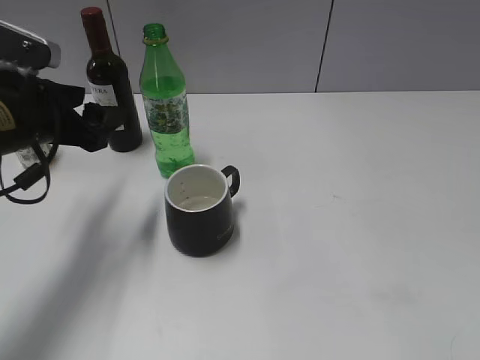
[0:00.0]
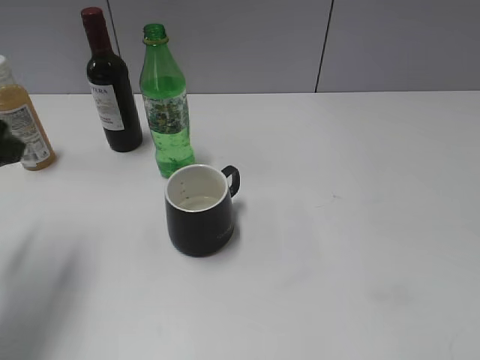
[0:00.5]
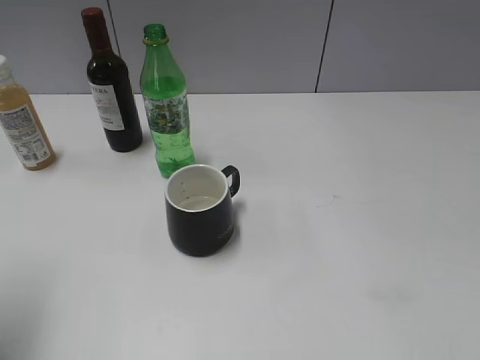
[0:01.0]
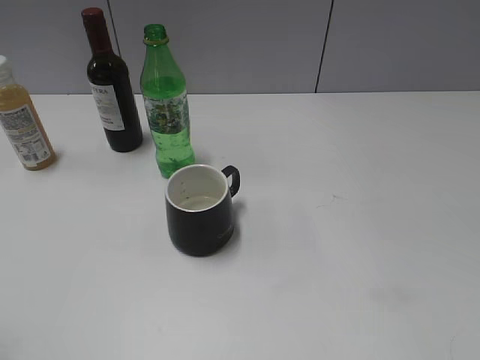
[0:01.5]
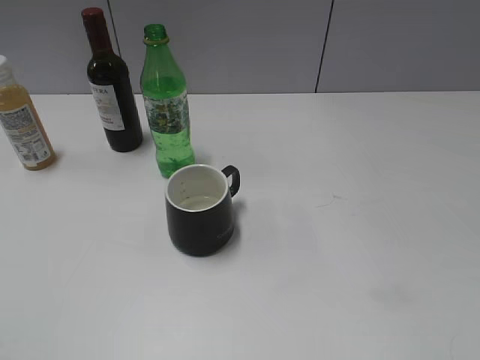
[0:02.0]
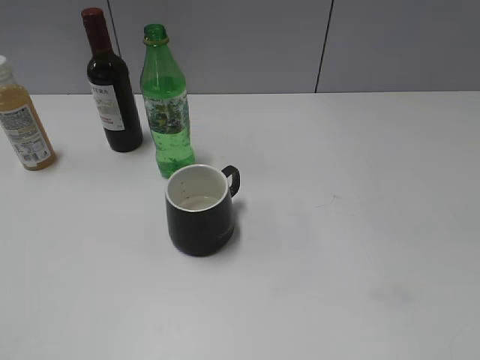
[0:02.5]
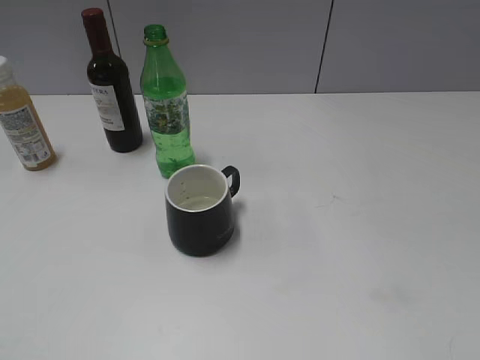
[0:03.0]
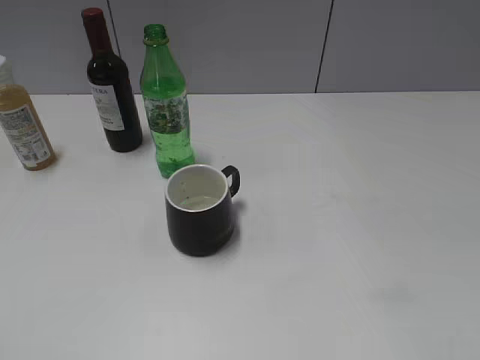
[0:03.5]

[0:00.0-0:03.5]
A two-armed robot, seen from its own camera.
0:00.0 to 0:02.0: The left gripper heads backward, covering some 25 cm.

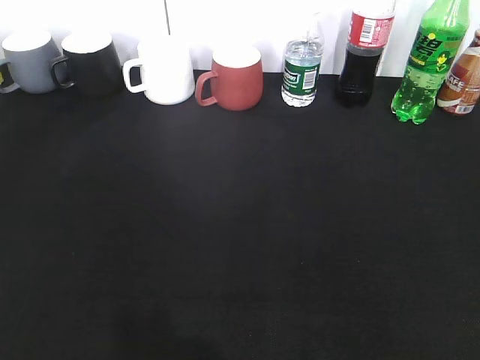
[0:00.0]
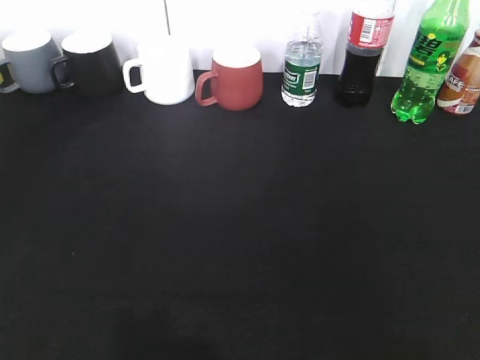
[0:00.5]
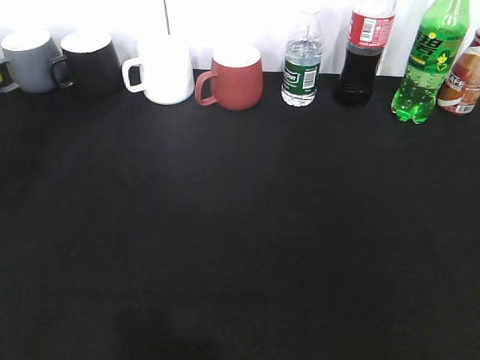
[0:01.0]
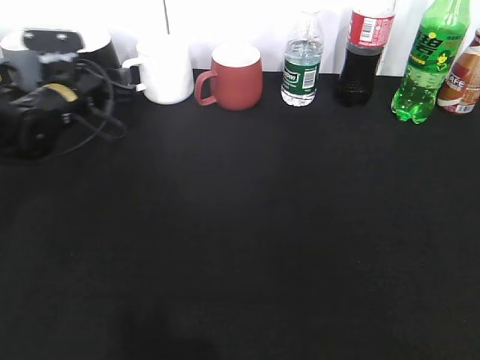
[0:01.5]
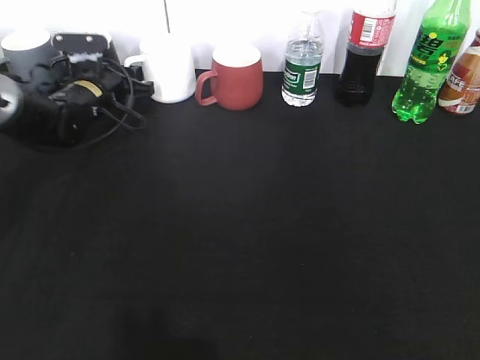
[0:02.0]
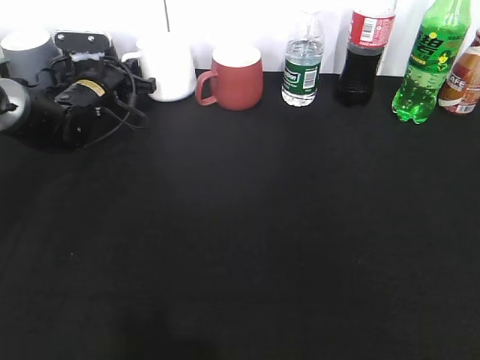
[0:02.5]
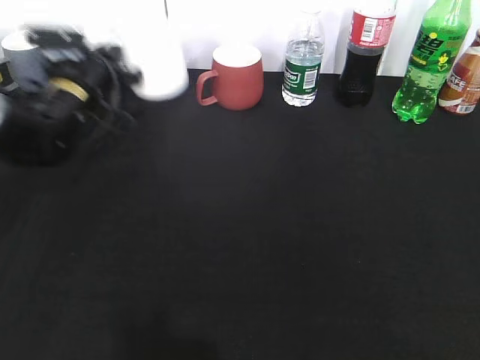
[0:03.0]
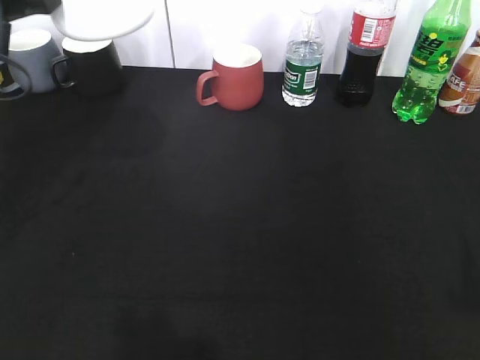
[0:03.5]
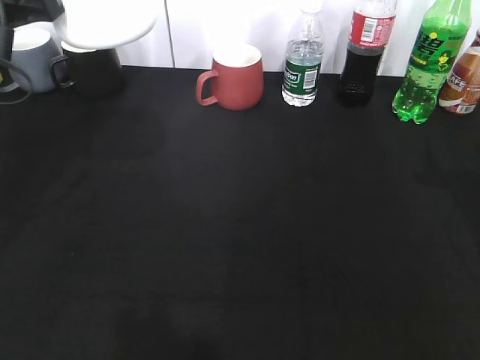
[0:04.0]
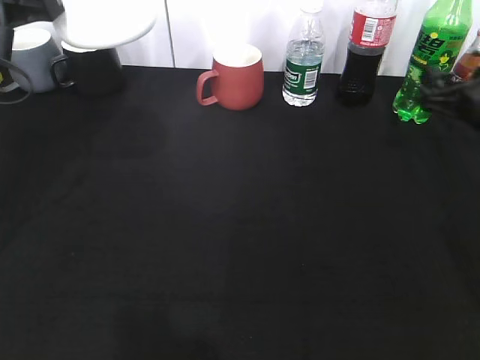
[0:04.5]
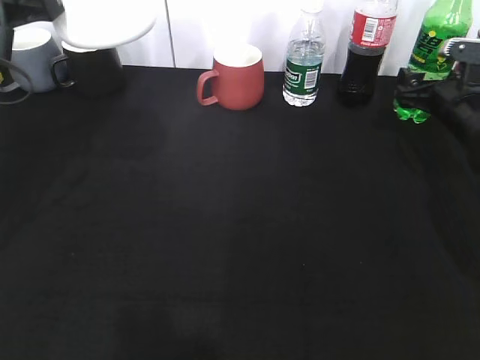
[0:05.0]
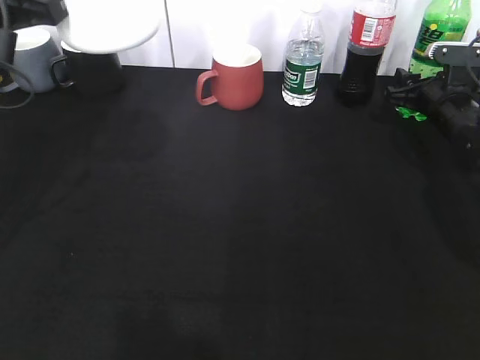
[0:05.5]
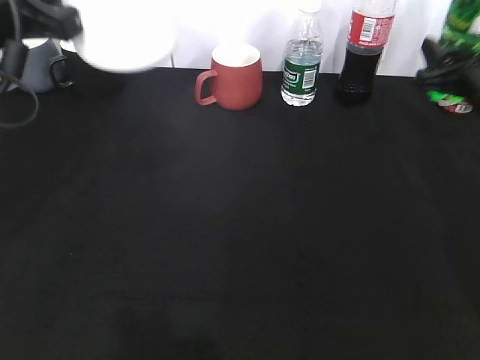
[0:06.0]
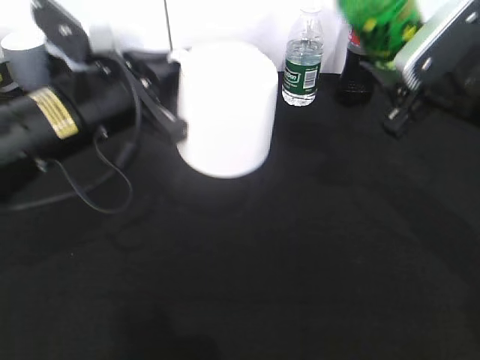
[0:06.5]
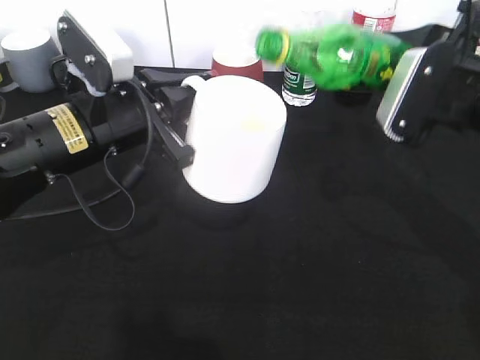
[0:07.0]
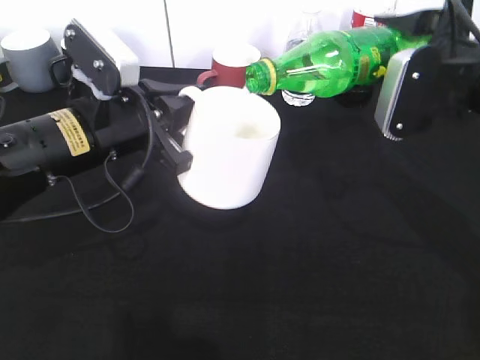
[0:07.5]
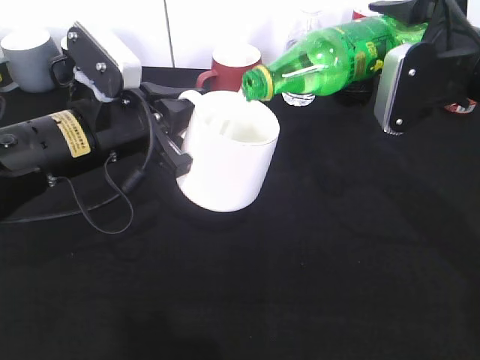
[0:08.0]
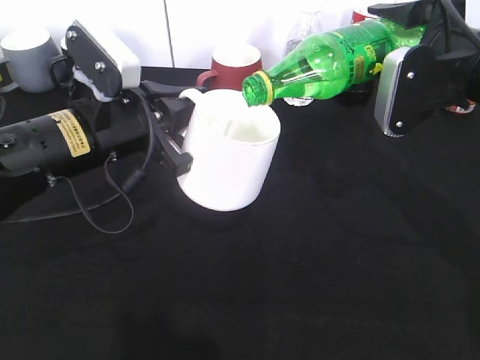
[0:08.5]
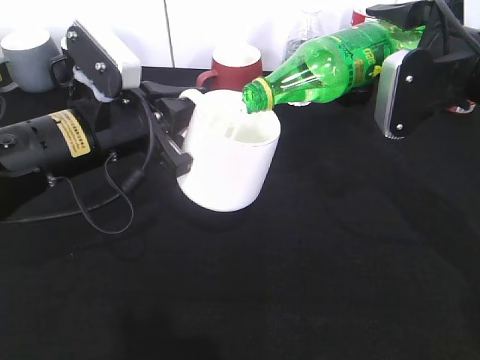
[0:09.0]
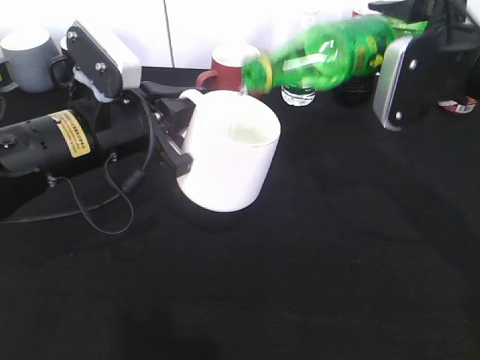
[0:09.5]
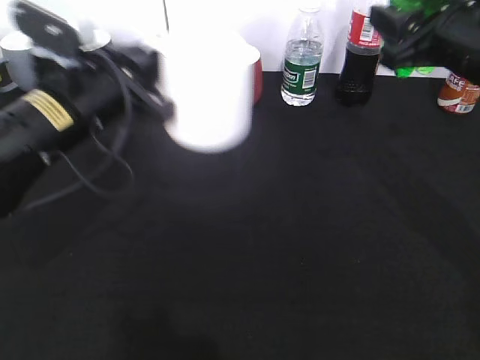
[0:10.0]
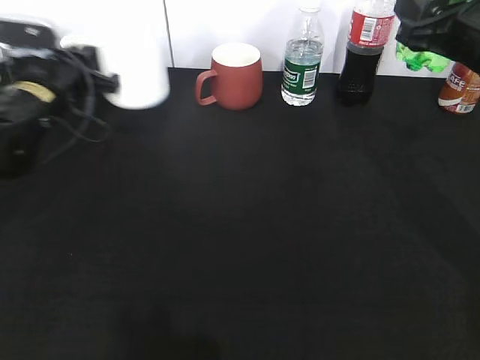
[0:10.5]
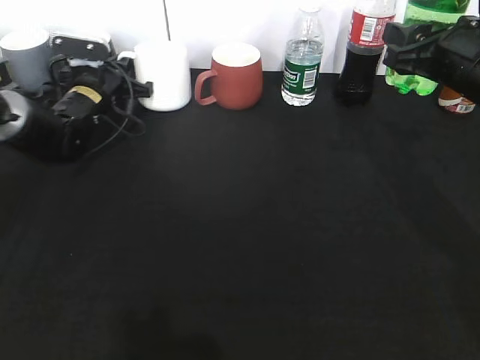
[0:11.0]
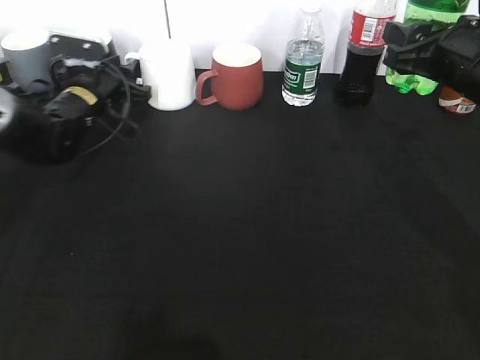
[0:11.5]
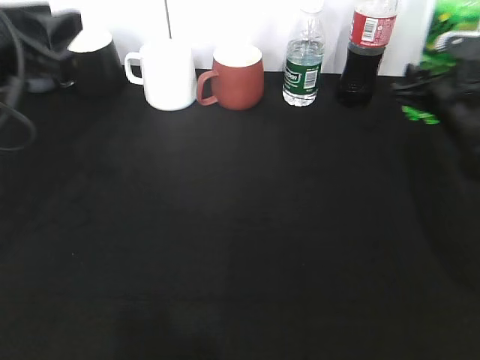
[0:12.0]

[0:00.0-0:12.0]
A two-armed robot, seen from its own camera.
Step, 0:00.0 to 0:02.5: Grasp the white cup with left gripper.
Step, 0:03.0 to 0:04.0: Lift the white cup with left gripper.
Step, 0:04.5 to 0:05.5: Grasp the bottle with sprite with right gripper.
Step, 0:06.0 to 0:09.5: Pour the sprite from bottle to cup with right gripper.
0:00.0 to 0:02.0: The left gripper shifts roughly 50 cm forward, and closes.
0:02.0 to 0:04.0: The left gripper travels backward and upward by about 25 cm, and closes its fingers; the right gripper moves forward, approximately 25 cm.
0:04.0 to 0:06.0: The right gripper moves forward, roughly 10 cm, and closes up.
0:06.0 to 0:08.0: The left gripper moves downward and to the right, about 10 cm. The right gripper travels to the left and upward by some 10 cm.
0:10.0 to 0:12.0: The right gripper shifts about 15 cm downward, forward and to the right. Meanwhile the left gripper is displaced to the left and upward by some 10 cm, goes forward and returns, roughly 20 cm each way, and opens its fingers.

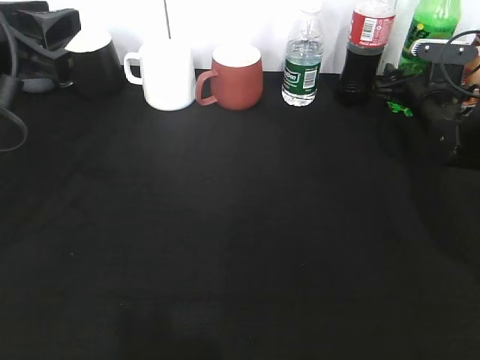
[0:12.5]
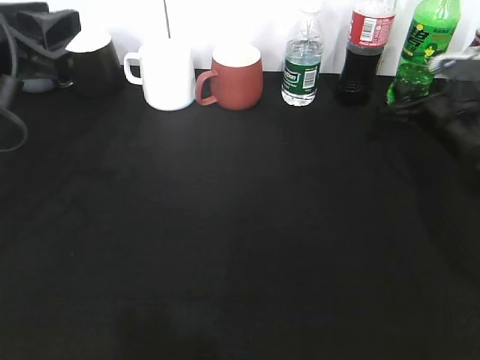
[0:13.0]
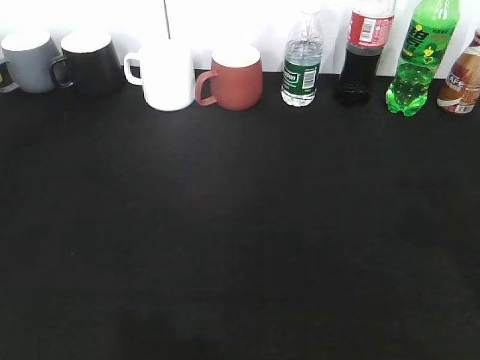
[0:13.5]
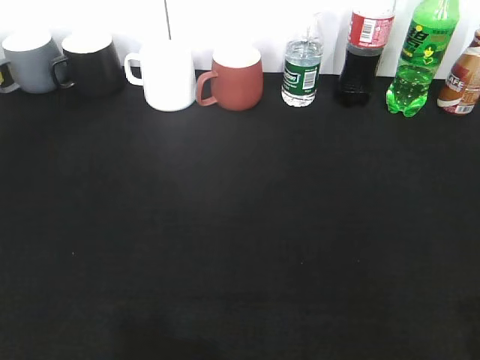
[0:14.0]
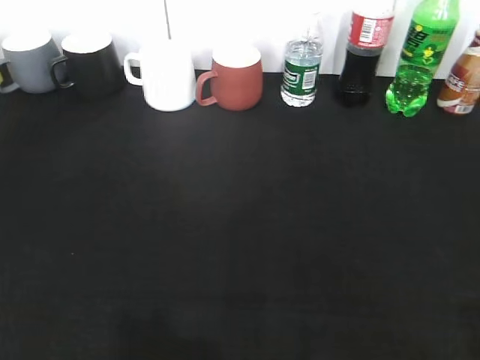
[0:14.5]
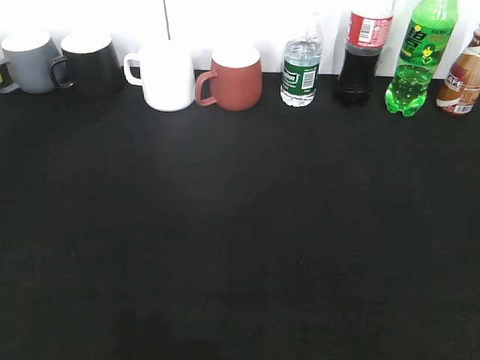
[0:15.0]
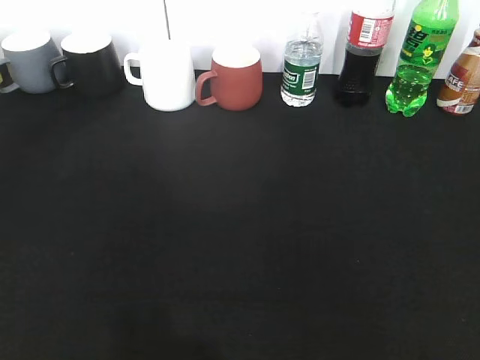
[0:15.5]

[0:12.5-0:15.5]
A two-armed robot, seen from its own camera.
0:12.5 to 0:14.0: The left gripper travels backward and to the left by approximately 25 cm, and opens up. Meanwhile the right gripper heads backward and upward, covering some 50 cm.

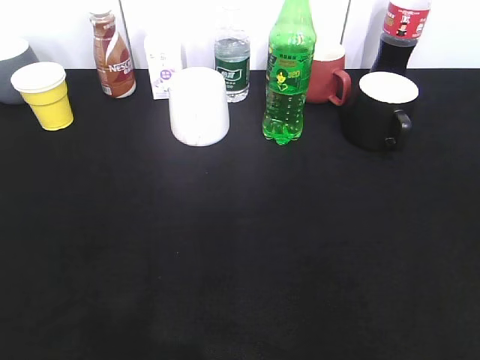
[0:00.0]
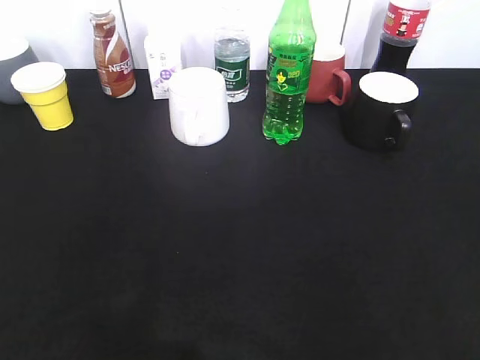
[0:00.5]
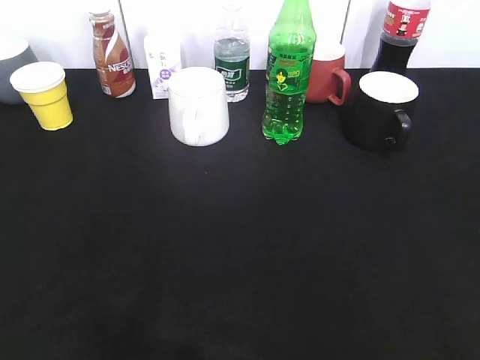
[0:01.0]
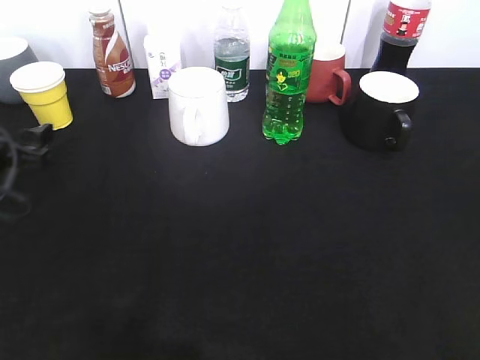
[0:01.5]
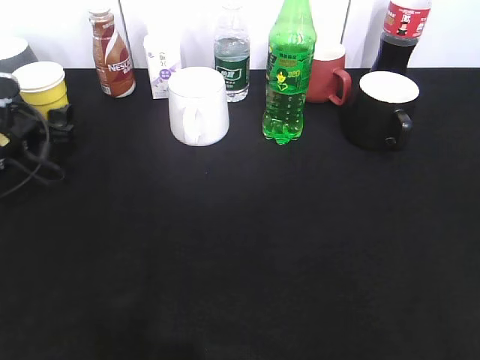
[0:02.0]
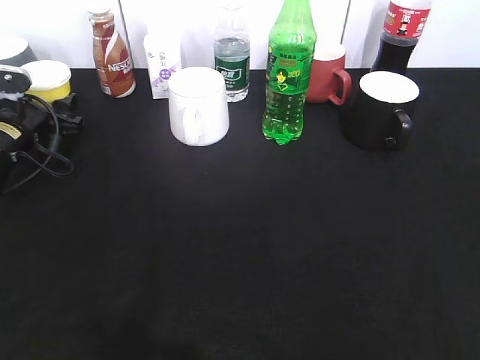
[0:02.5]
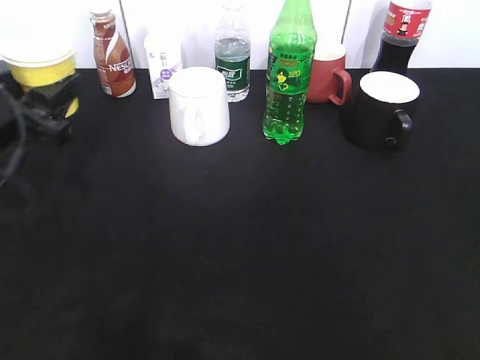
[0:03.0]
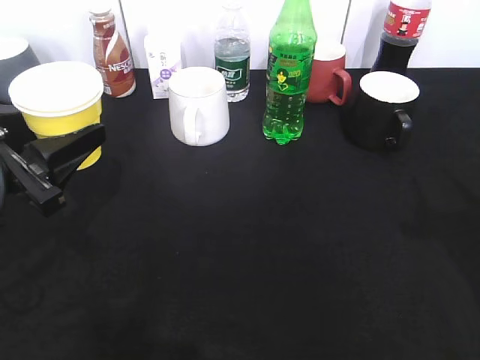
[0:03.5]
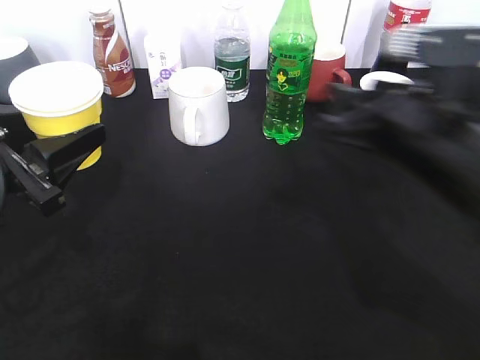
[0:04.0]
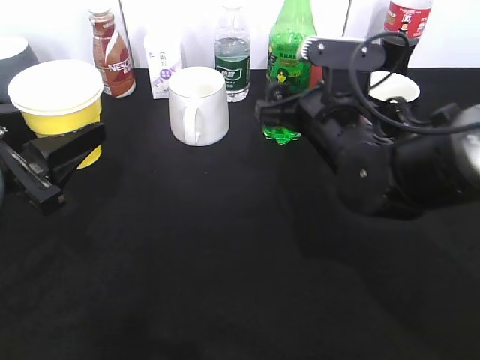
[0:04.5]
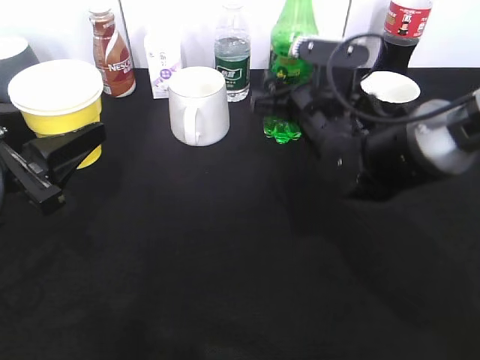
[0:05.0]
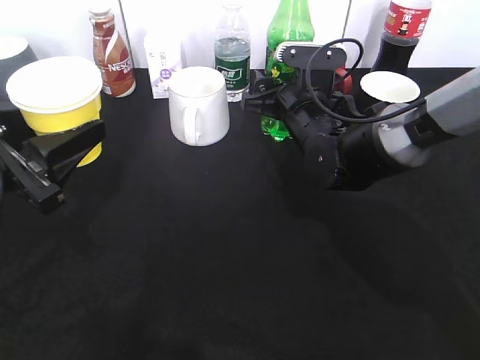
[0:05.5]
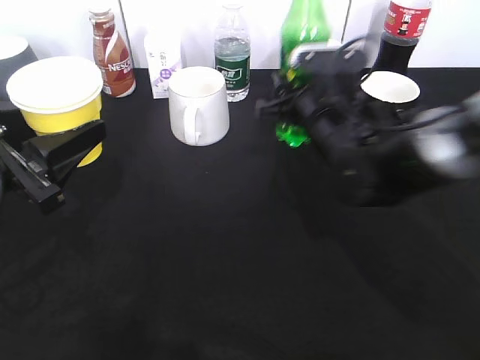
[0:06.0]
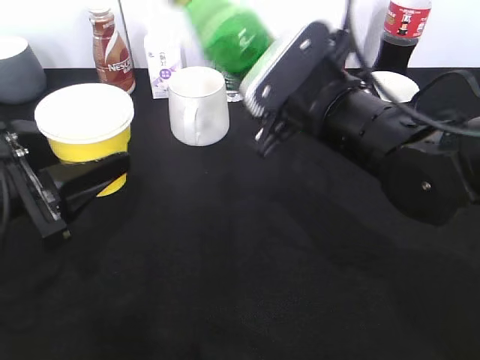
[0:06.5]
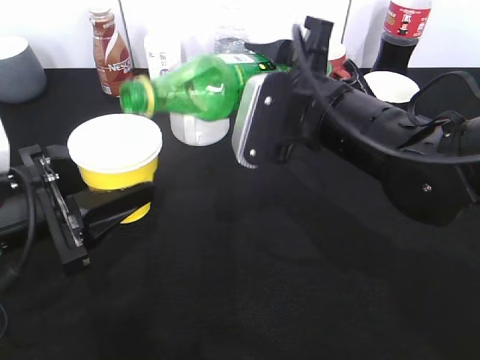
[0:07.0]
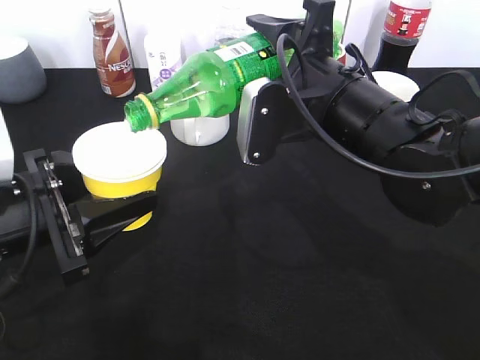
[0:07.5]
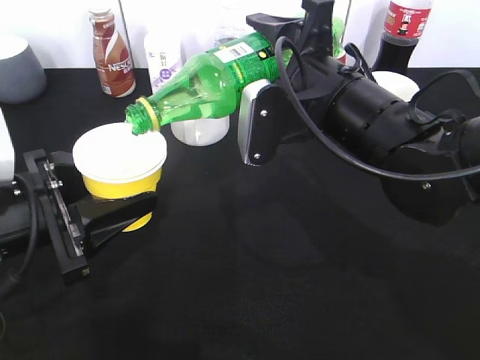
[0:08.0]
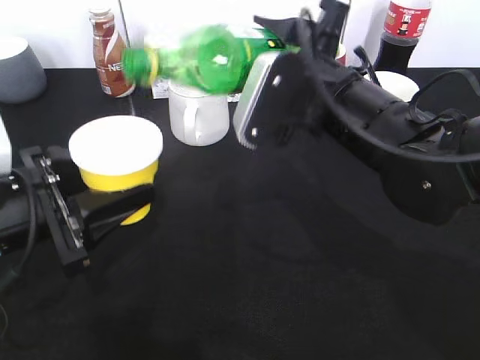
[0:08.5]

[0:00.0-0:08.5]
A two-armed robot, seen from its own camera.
Step, 0:00.0 to 0:02.5: Grasp the yellow paper cup with left gripper.
Step, 0:03.0 to 0:03.5: Lift the yellow paper cup with left gripper.
Step, 0:04.0 to 0:05.5: Grasp the bottle with sprite with right gripper.
Step, 0:06.0 to 0:08.5: Pour the sprite from bottle to cup with right gripper.
0:00.0 to 0:02.0: The left gripper moves forward and downward, approximately 40 cm.
0:02.0 to 0:04.0: The left gripper moves backward and upward, approximately 20 cm, and closes. The right gripper is displaced forward and to the left by some 30 cm.
0:04.0 to 0:06.5: The right gripper shifts about 5 cm to the left, reaches approximately 15 cm forward, then returns, and opens and closes again.
